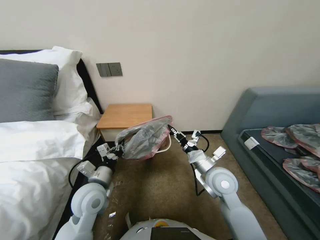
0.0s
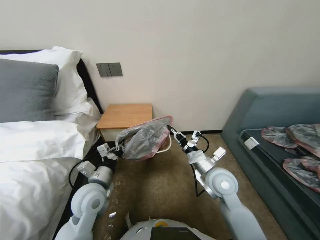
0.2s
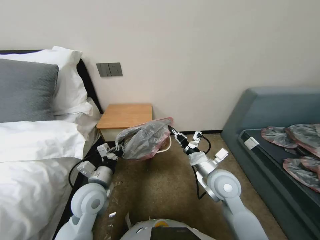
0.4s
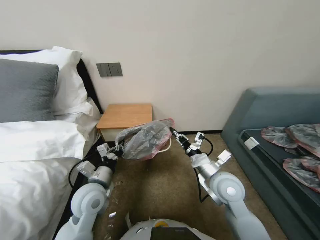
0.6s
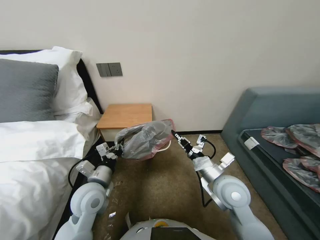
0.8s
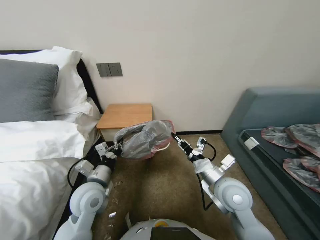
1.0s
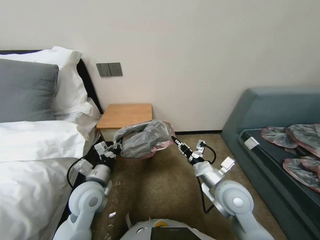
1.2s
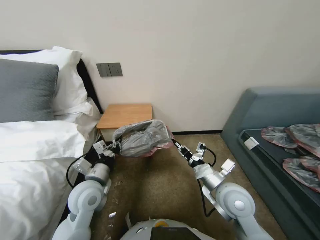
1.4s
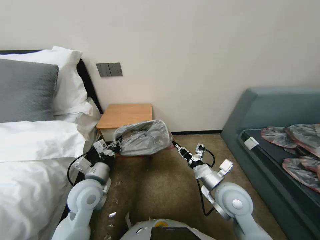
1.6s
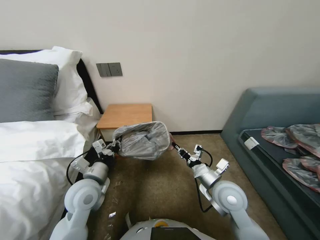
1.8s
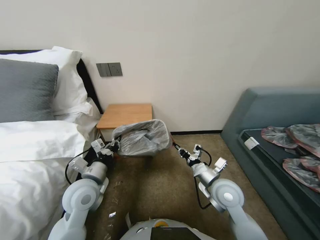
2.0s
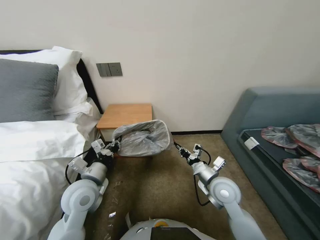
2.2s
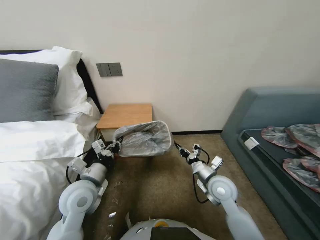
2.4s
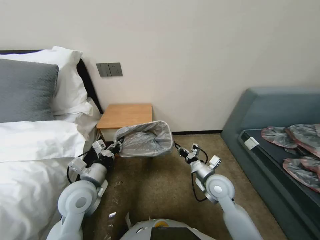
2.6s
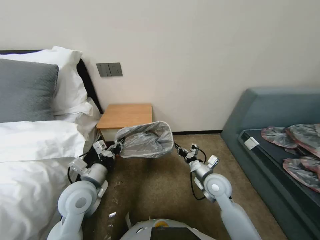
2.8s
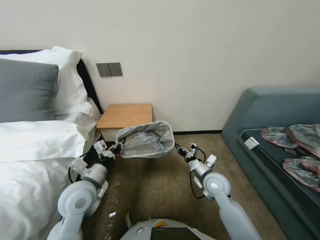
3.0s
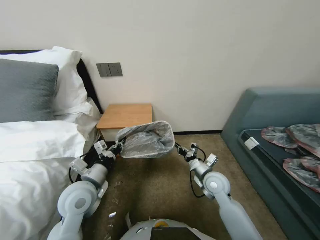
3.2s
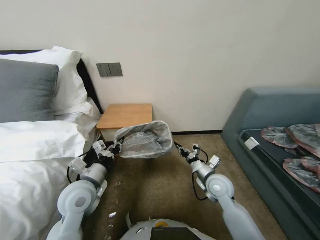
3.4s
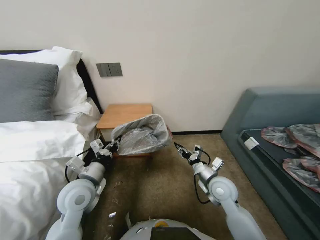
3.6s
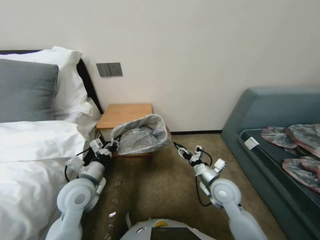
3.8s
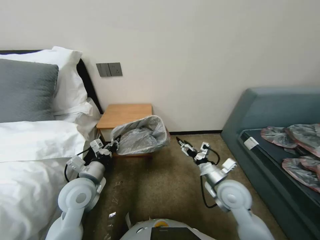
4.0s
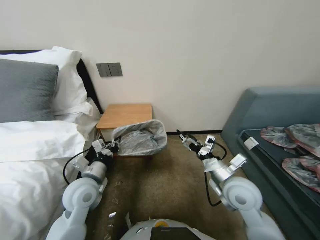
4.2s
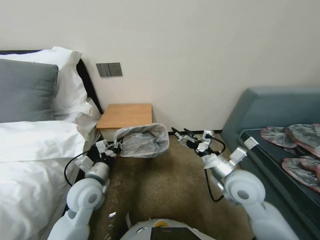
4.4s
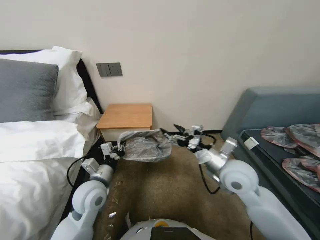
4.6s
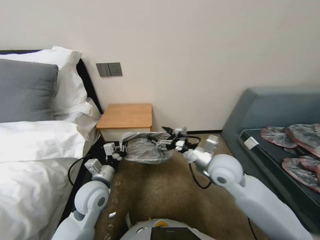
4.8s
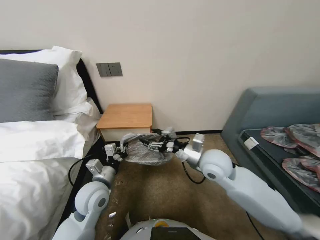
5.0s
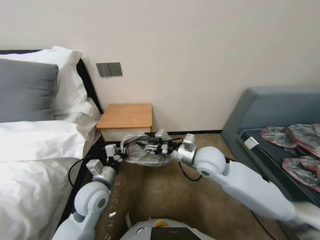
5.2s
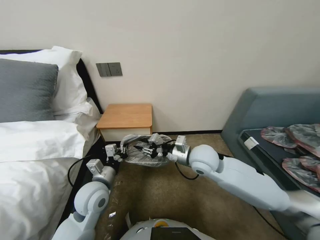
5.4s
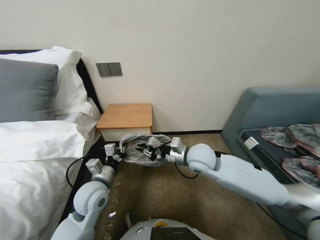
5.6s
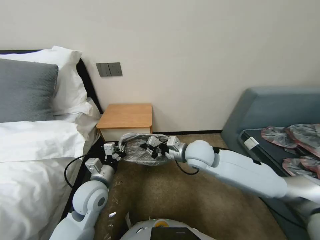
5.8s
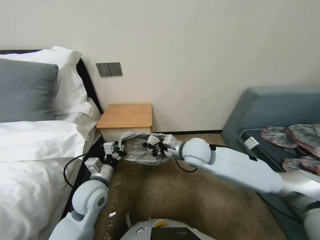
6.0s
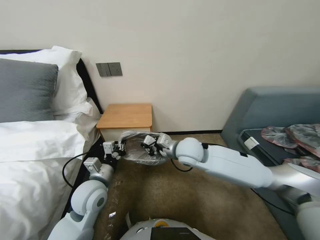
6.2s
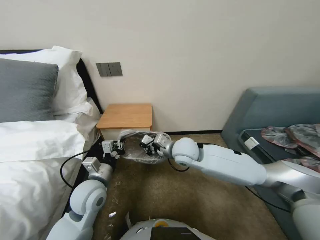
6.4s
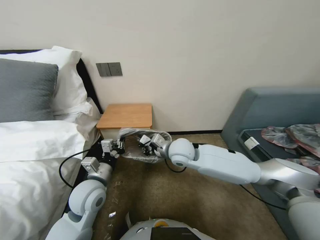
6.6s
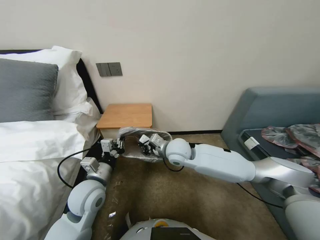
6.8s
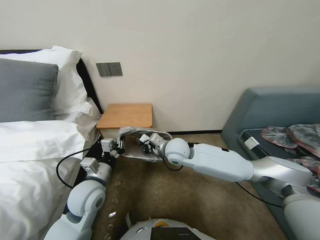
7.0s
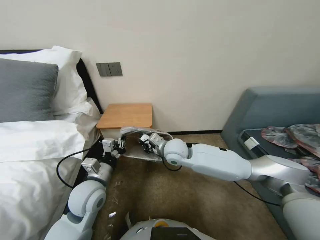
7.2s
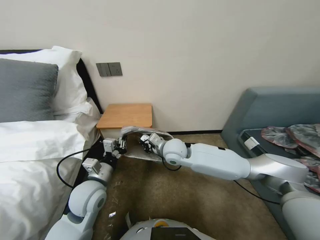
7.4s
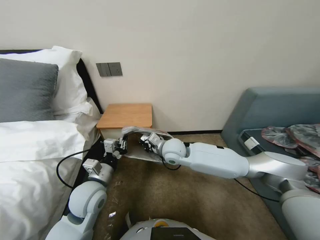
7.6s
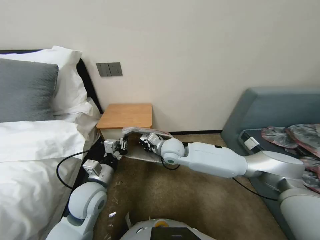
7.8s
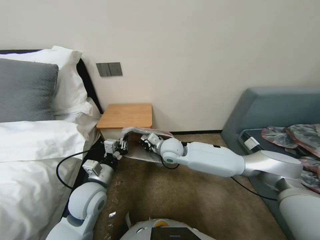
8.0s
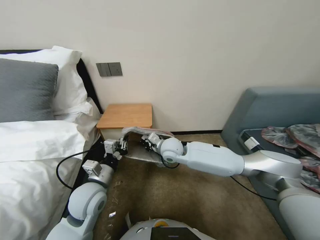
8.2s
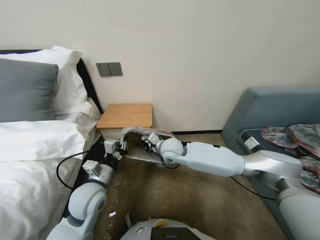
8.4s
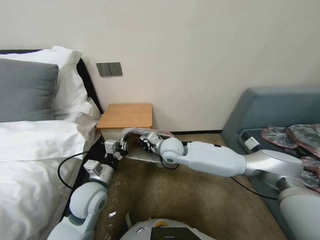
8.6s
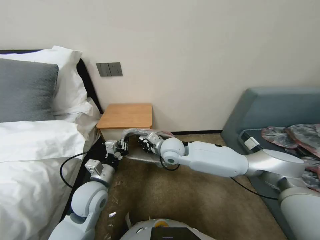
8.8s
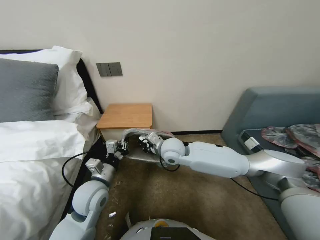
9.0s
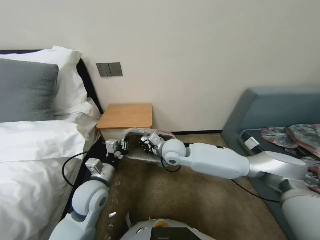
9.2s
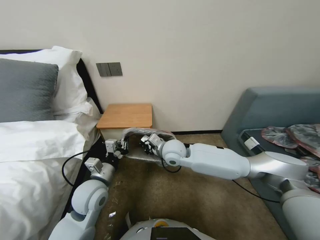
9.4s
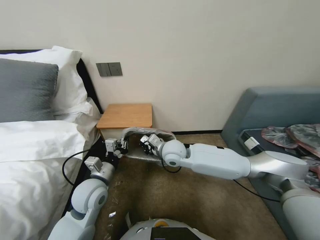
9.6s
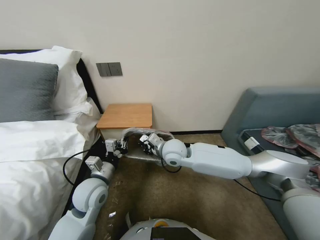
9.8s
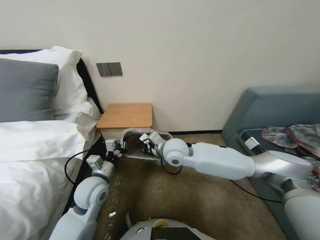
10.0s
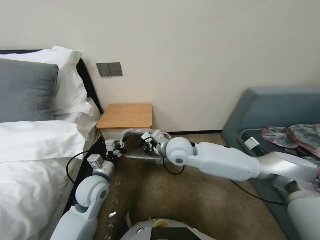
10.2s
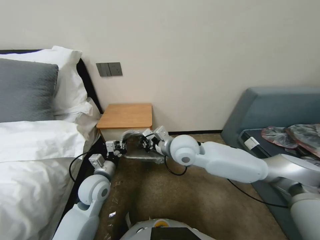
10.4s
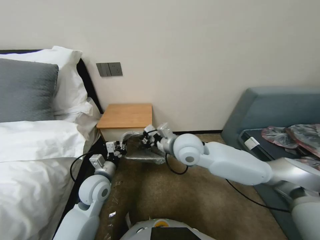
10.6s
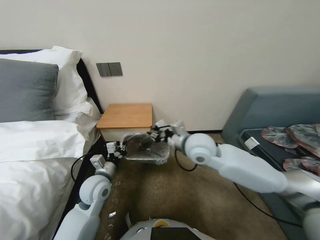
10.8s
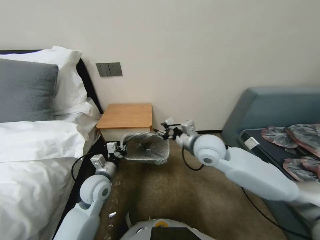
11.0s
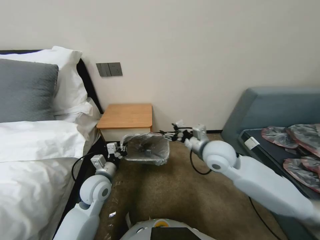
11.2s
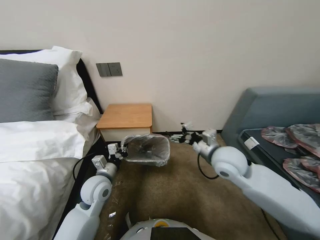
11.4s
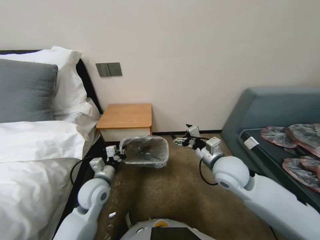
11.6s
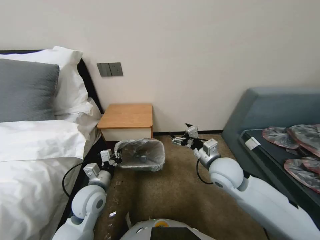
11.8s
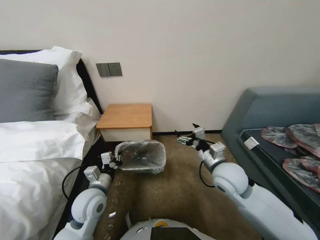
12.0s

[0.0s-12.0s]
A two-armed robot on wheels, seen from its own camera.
Task of the whole recording: Pick up the garbage bag from the table and place it over the trash can.
0.0s to 1.6s: The right gripper heads backward, covering about 5 cm.
1.6s to 3.0s: The right gripper goes about 10 cm downward and forward.
3.0s to 4.4s: The right gripper goes roughly 10 cm upward, and opens its fingers.
4.4s to 6.0s: The right gripper is displaced to the left and forward by roughly 15 cm, and closes up.
6.0s to 7.6s: The right gripper travels to the left by approximately 5 cm.
7.6s to 9.0s: The grippers make only small movements.
9.0s to 10.4s: The right gripper ends up about 5 cm from where it was.
10.4s to 12.0s: The right gripper shifts about 15 cm to the right and backward, and opens its fingers.

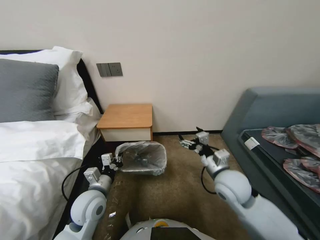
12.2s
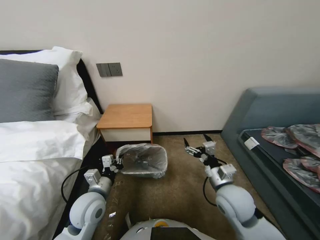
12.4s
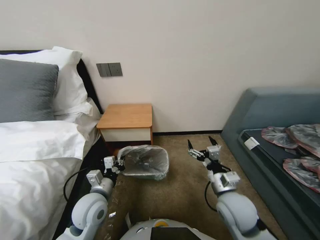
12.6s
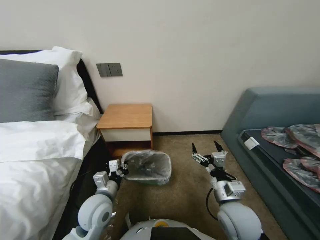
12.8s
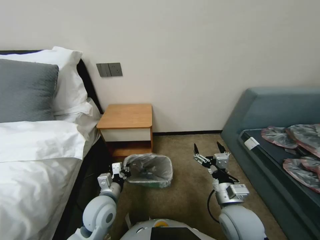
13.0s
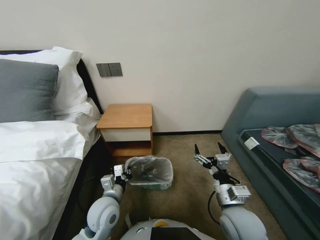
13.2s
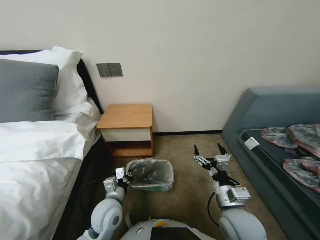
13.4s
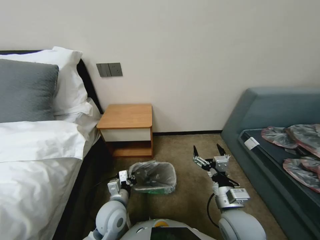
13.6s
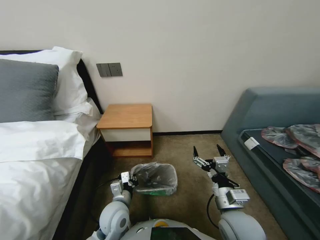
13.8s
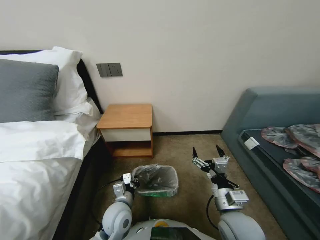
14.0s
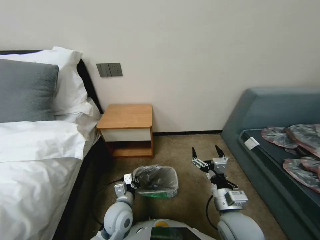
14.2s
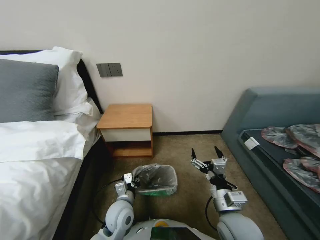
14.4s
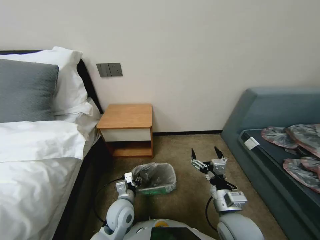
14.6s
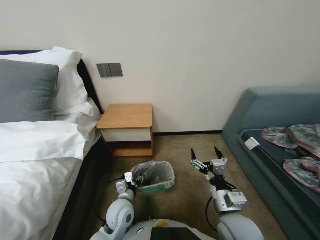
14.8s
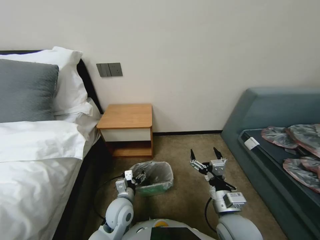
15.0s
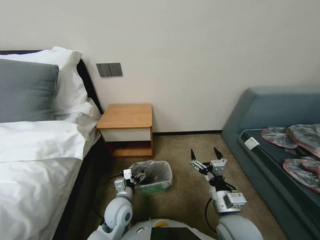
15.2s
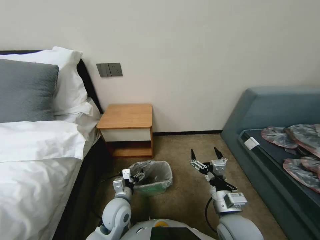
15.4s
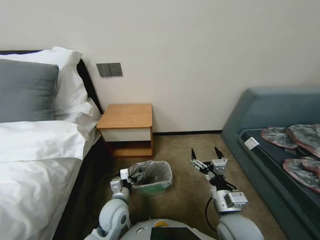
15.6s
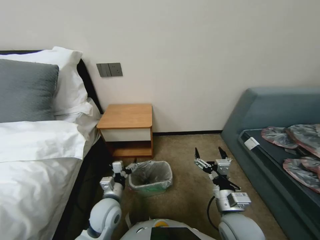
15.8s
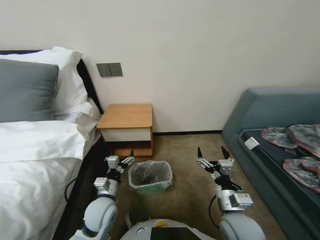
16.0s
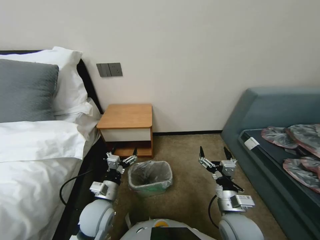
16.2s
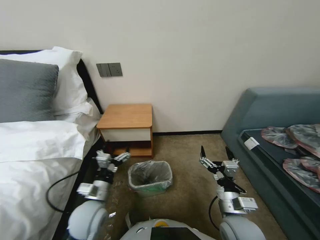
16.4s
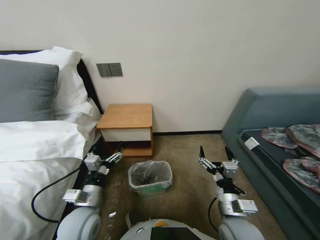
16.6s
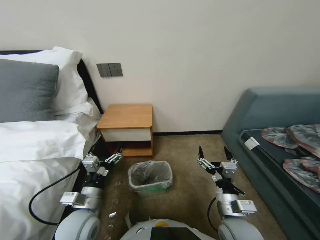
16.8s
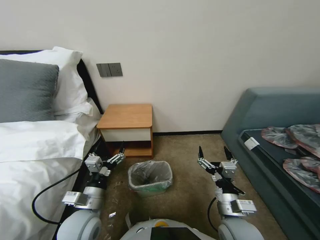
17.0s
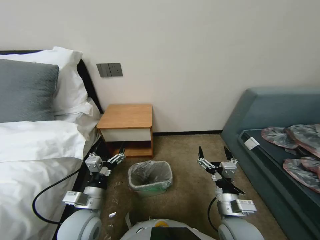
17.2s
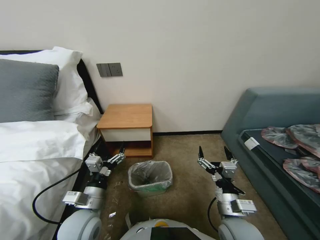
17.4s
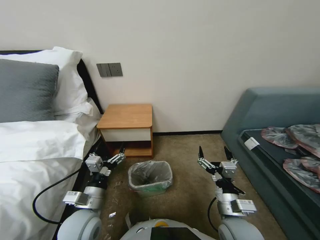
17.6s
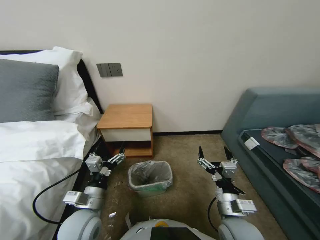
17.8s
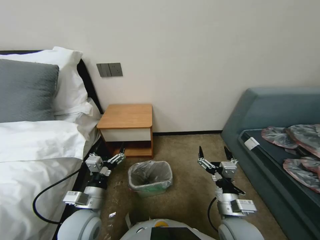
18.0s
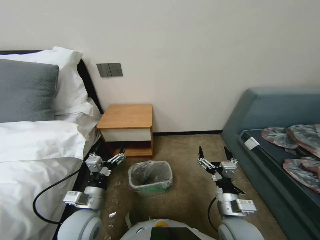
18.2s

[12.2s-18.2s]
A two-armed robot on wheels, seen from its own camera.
Task of the whole recording: Pick up the garbage bag from the table and place it over the trash can.
12.2s to 13.8s: The right gripper heads backward, covering approximately 10 cm; the left gripper travels to the right and downward by some 10 cm.
13.8s to 15.2s: The left gripper opens up.
15.2s to 16.6s: The left gripper goes some 10 cm to the left and upward.
16.6s to 18.2s: The grippers move only a little.

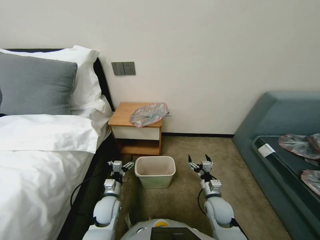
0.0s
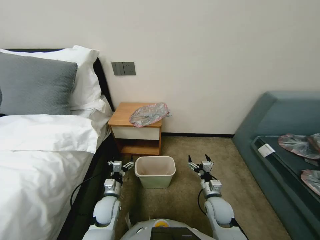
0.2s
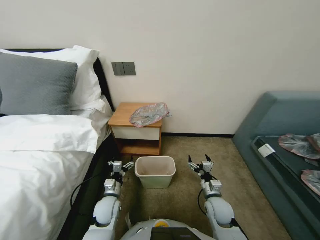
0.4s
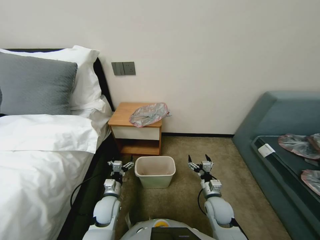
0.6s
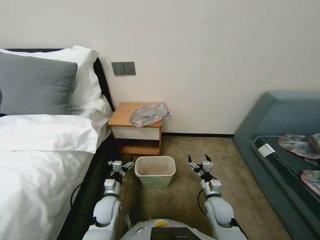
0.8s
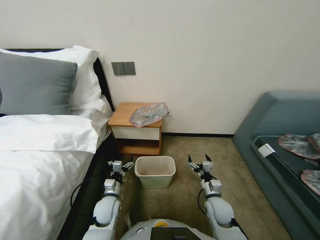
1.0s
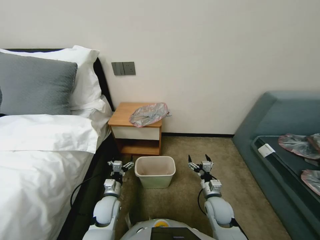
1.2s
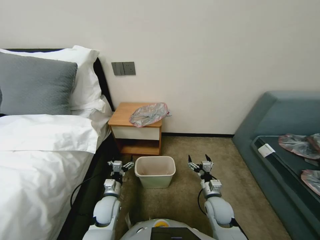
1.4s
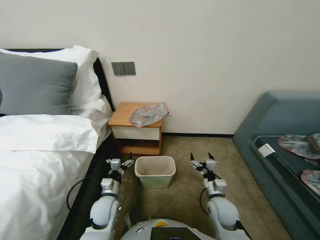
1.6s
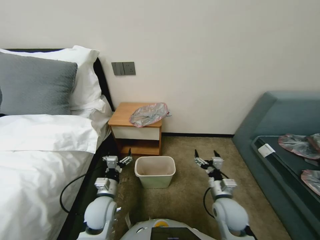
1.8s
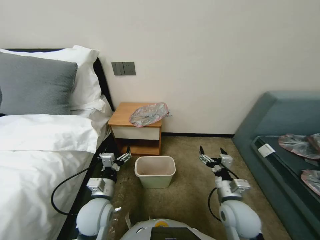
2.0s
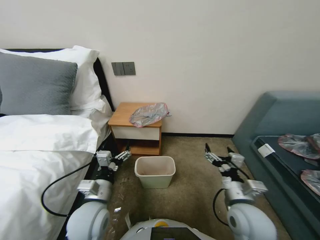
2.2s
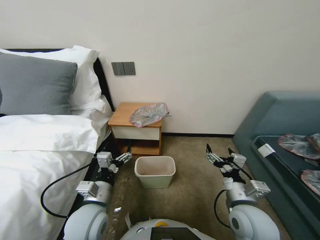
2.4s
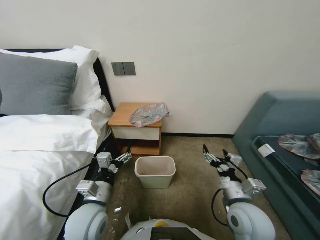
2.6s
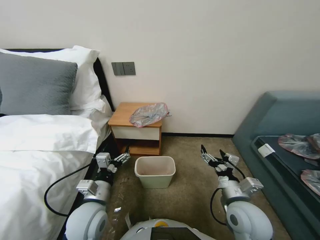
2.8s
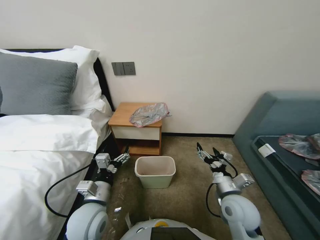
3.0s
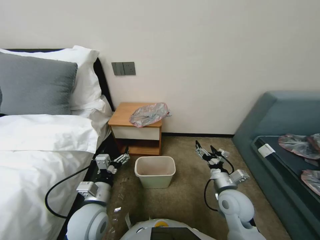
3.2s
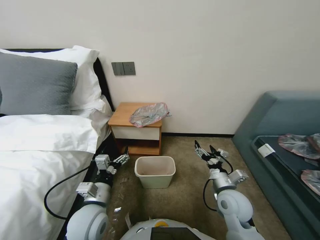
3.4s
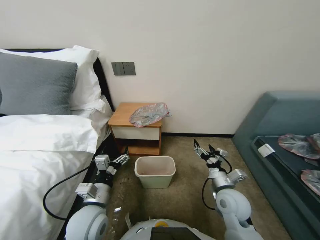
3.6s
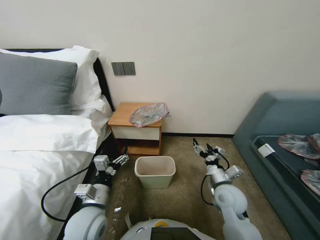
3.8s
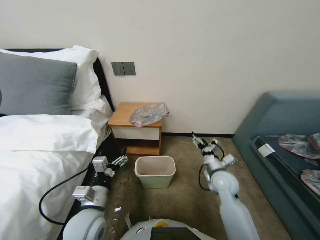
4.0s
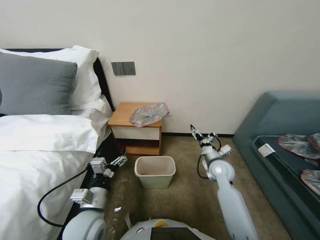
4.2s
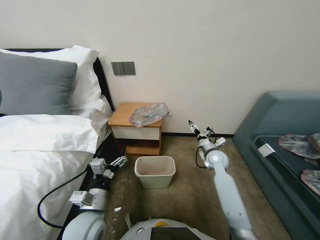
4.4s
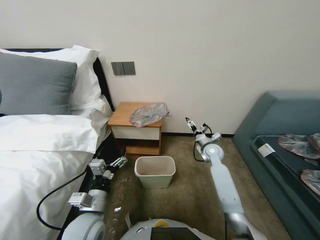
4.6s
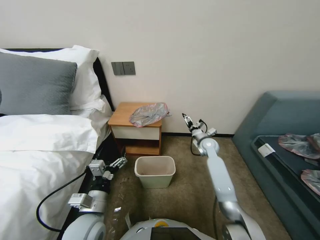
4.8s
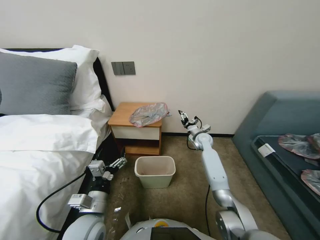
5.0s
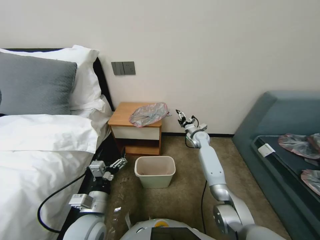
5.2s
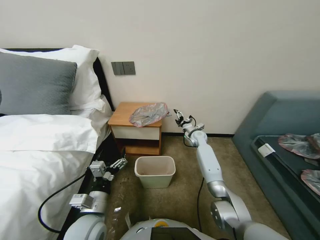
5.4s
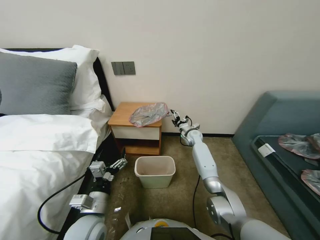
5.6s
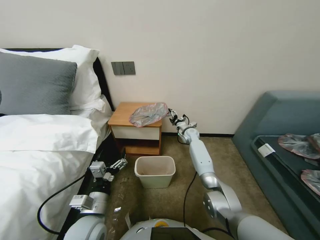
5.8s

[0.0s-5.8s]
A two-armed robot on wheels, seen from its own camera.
Task of the whole recording: Pick up the garbage bag from the table and place it over the trash can.
1.4s to 2.8s: The two grippers go roughly 15 cm upward.
2.8s to 4.4s: The right gripper shifts about 20 cm forward.
4.4s to 5.8s: The right gripper shifts about 20 cm forward.
